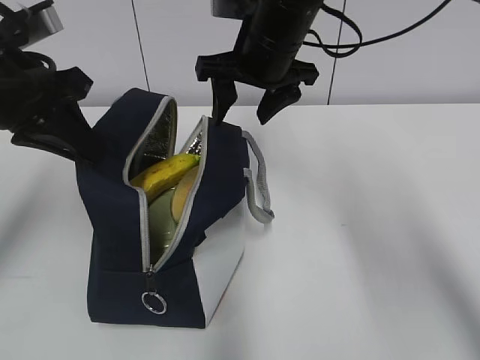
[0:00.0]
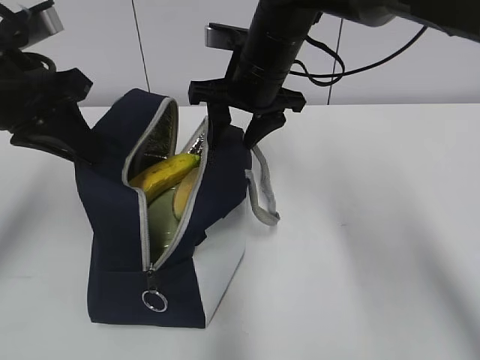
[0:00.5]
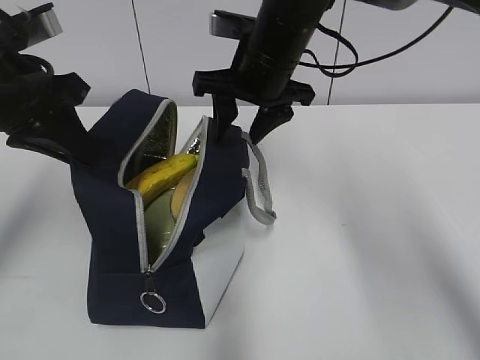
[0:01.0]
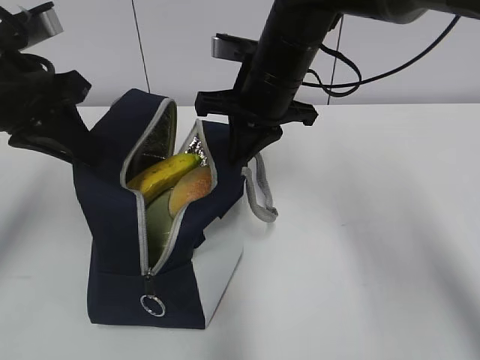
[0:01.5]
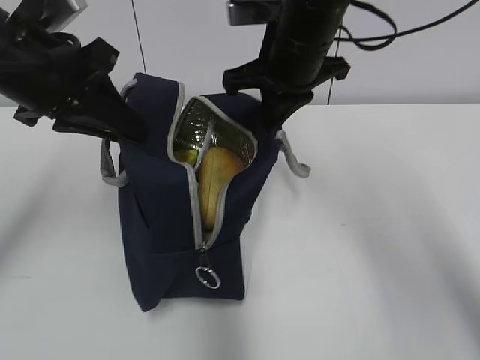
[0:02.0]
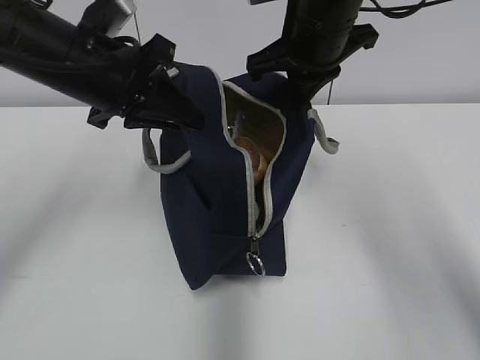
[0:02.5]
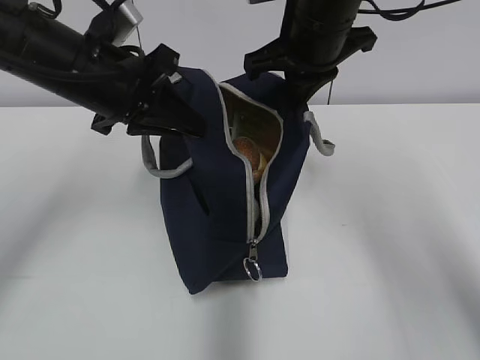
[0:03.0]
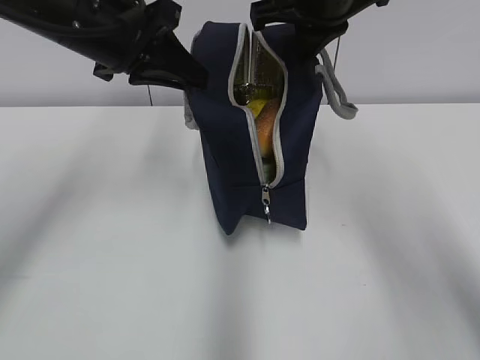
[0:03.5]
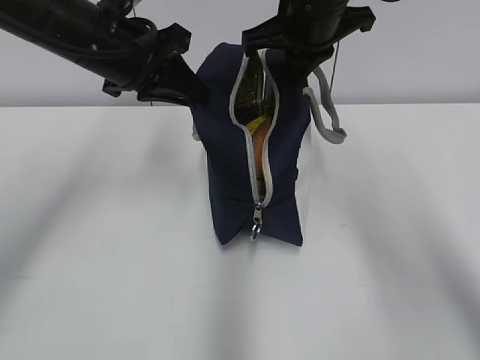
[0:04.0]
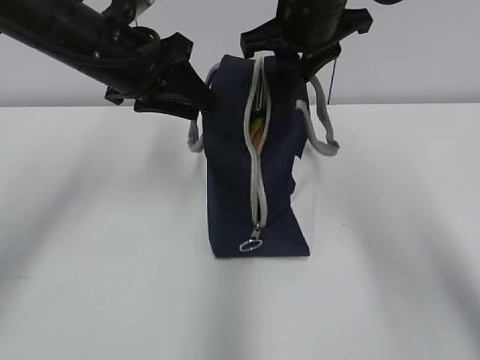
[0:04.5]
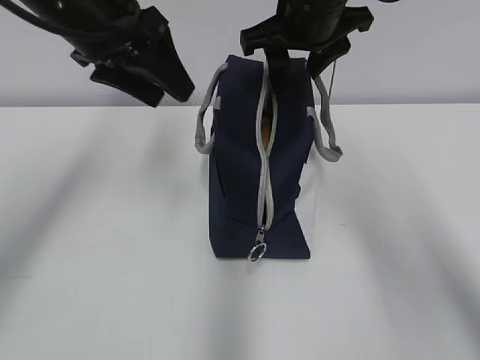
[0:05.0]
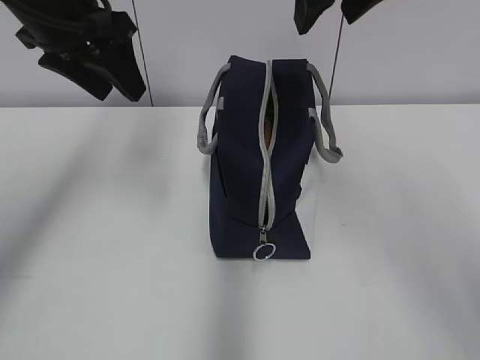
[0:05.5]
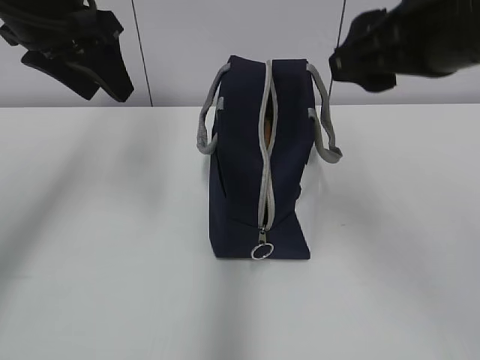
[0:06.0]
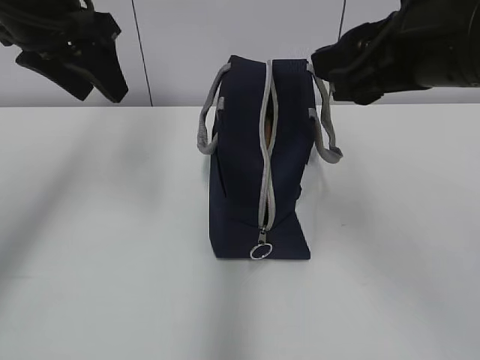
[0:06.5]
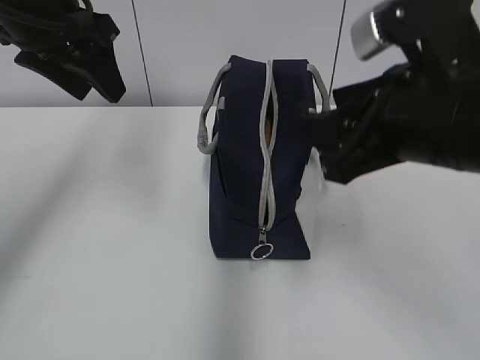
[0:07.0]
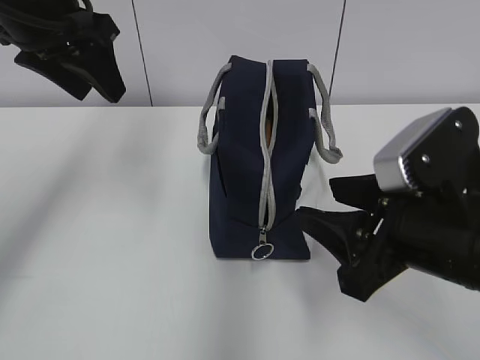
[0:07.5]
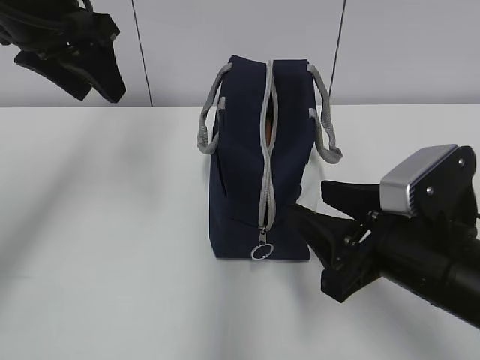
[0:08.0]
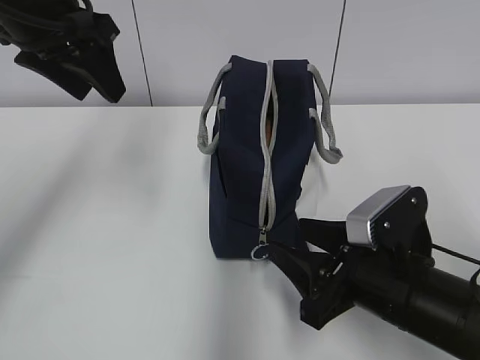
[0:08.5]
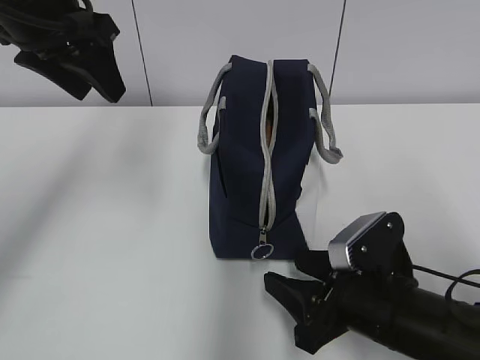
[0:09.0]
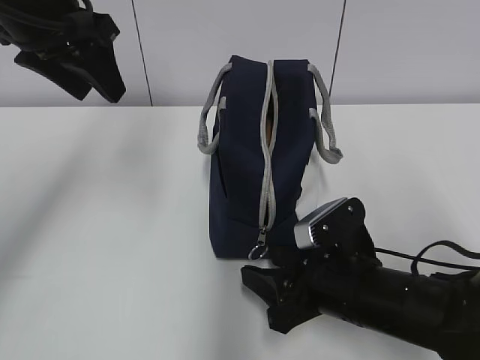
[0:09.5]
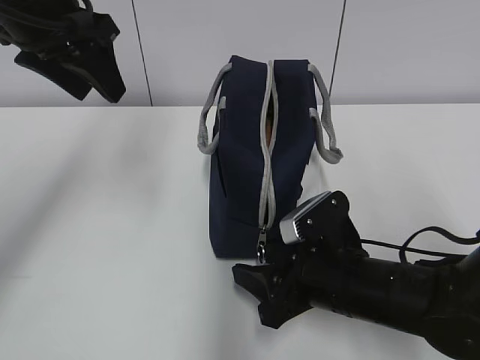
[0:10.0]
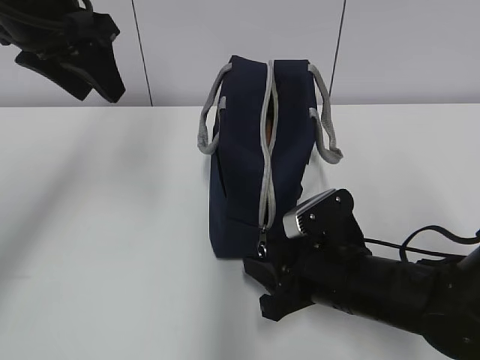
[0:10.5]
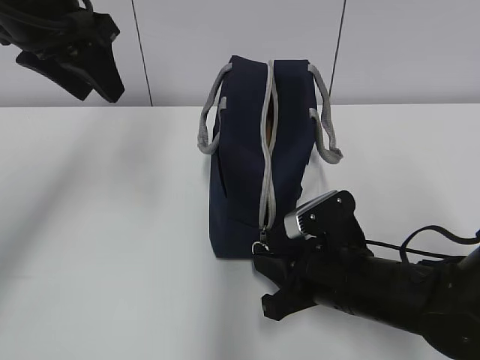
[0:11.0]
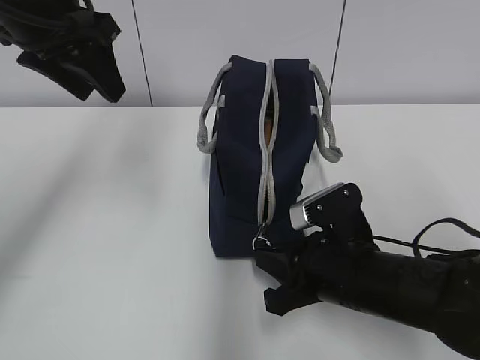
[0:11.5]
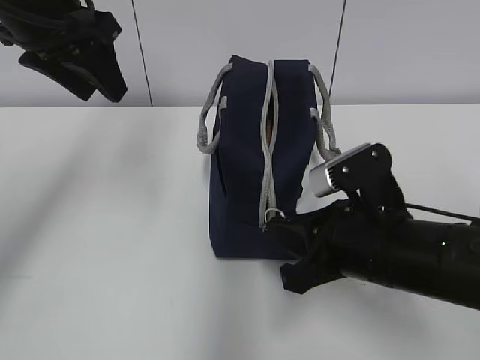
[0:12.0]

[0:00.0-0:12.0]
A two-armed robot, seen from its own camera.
0.0 to 2.0 s: The right gripper closes its fingers.
2.0 to 4.0 s: The left gripper is displaced forward by roughly 5 cm.
4.0 to 6.0 s: The left gripper moves upward, some 5 cm, and opens. The right gripper goes roughly 15 cm backward, and opens its fingers.
6.0 to 8.0 s: The right gripper travels downward by some 20 cm.
8.0 to 10.0 s: The right gripper travels downward by roughly 10 cm.
10.0 to 12.0 s: The right gripper shifts roughly 5 cm upward, and closes its fingers.

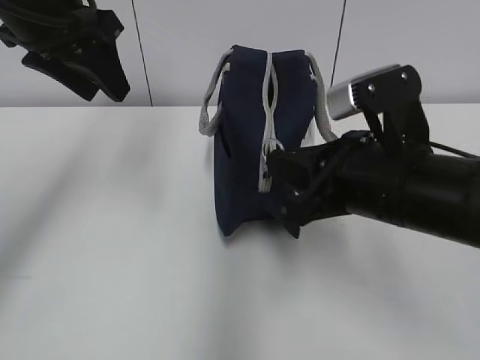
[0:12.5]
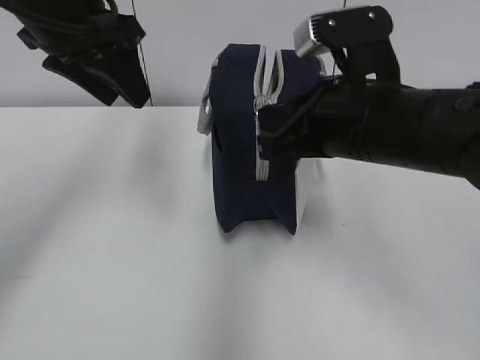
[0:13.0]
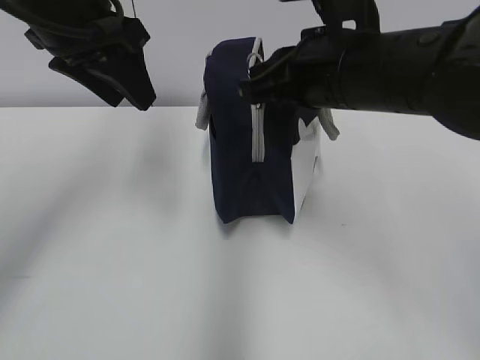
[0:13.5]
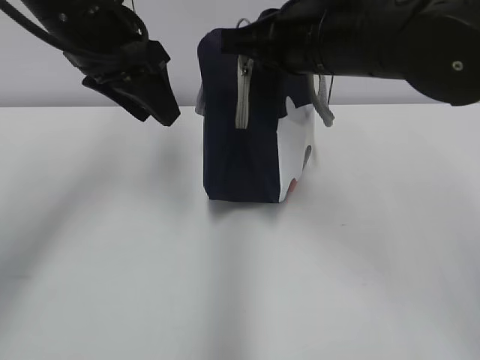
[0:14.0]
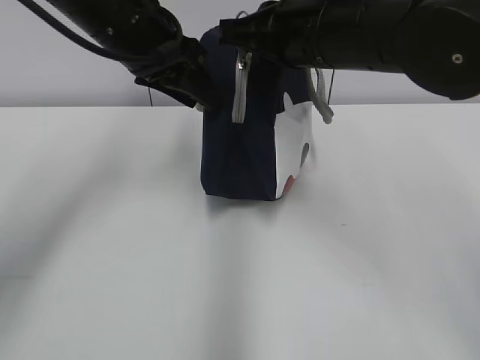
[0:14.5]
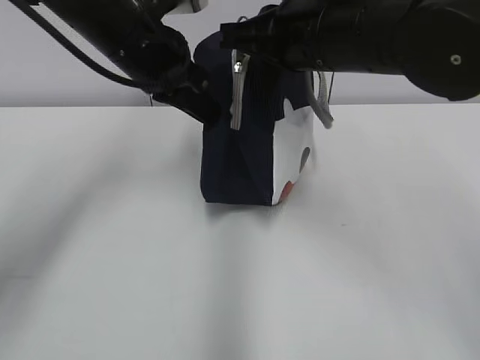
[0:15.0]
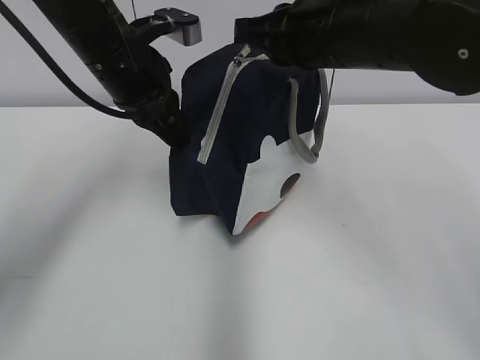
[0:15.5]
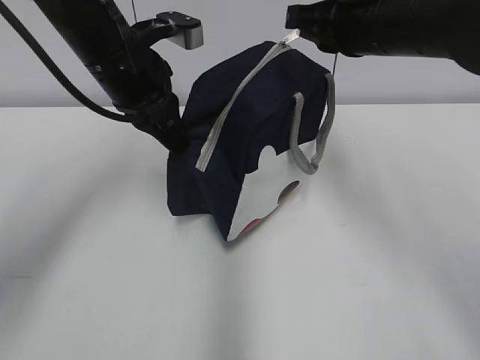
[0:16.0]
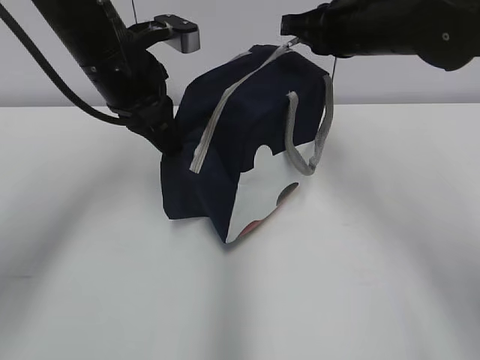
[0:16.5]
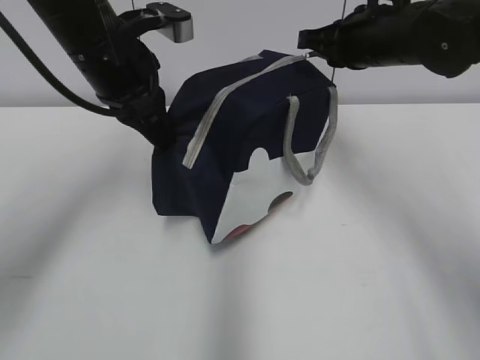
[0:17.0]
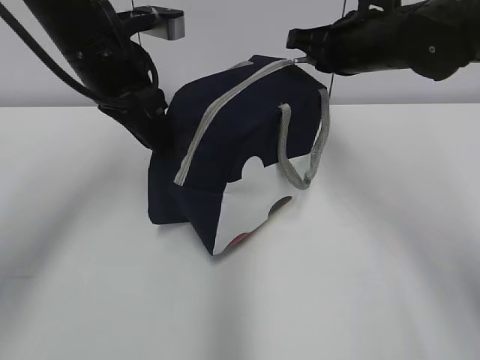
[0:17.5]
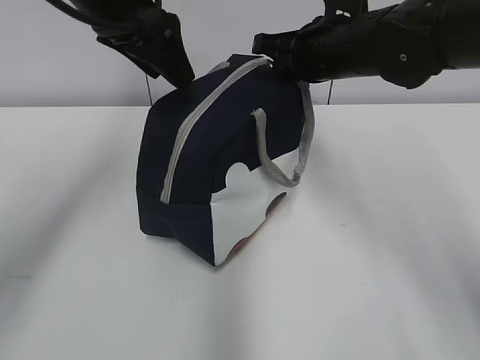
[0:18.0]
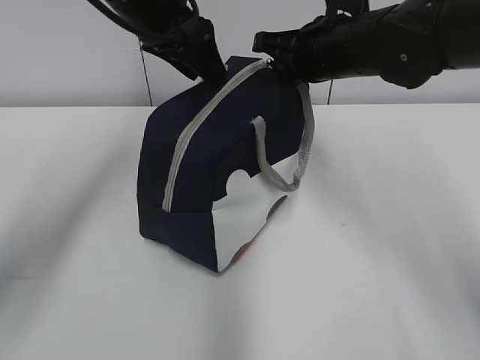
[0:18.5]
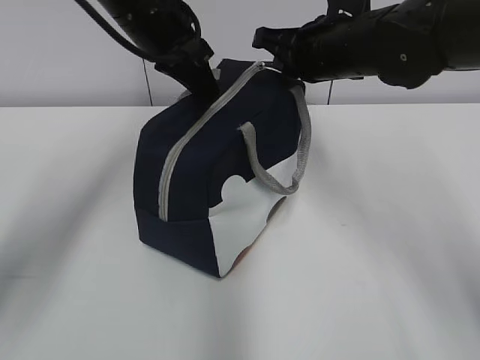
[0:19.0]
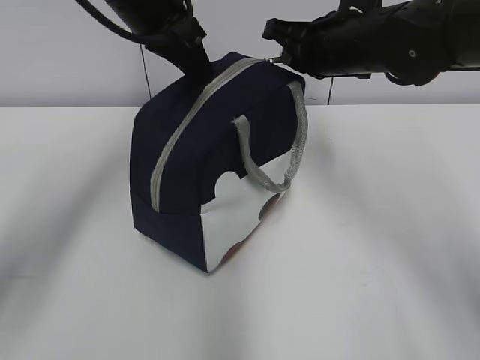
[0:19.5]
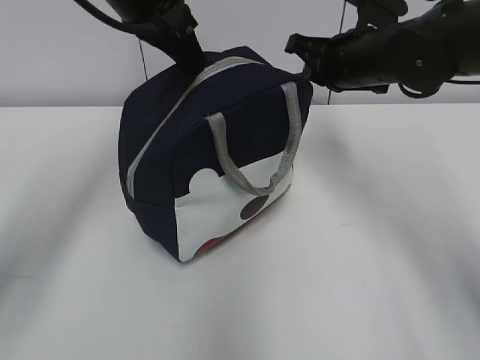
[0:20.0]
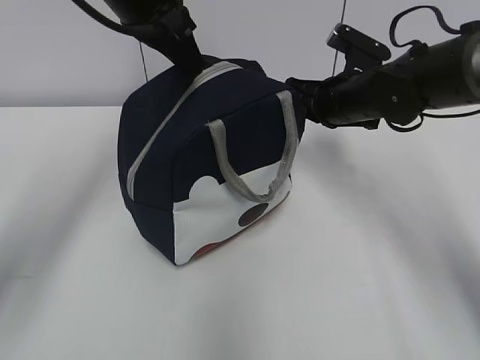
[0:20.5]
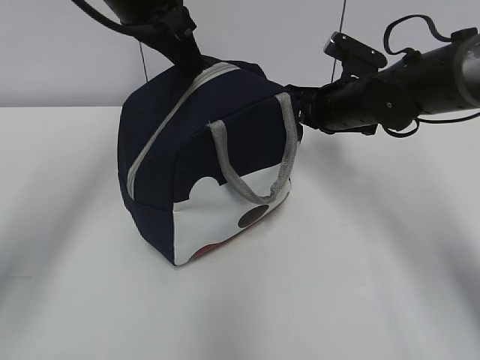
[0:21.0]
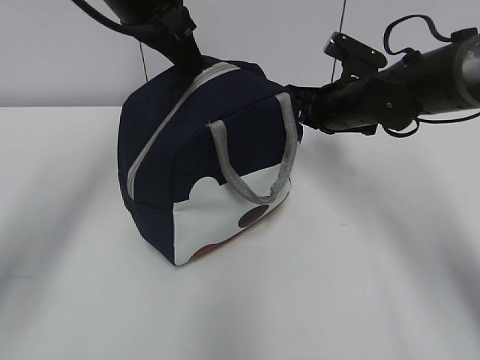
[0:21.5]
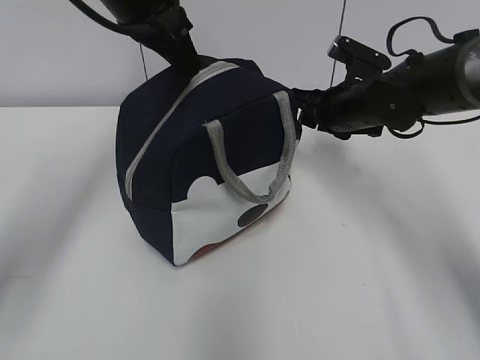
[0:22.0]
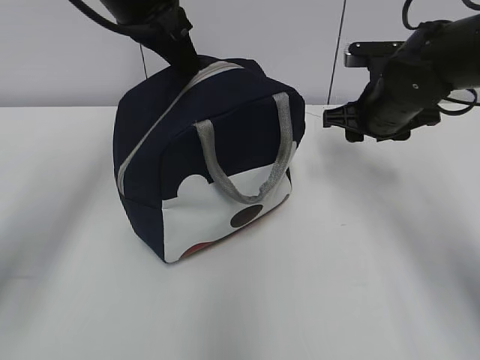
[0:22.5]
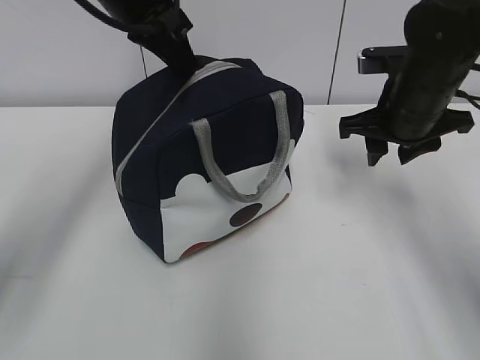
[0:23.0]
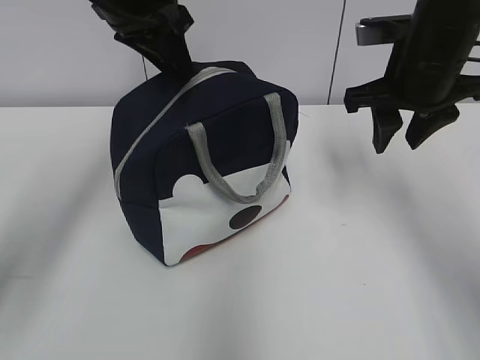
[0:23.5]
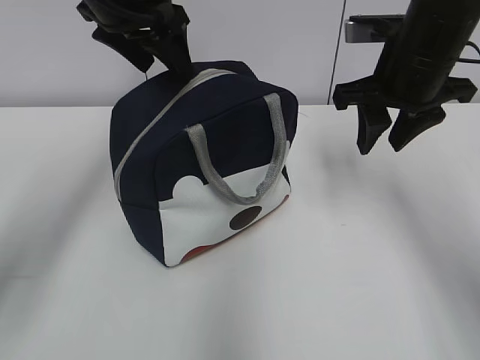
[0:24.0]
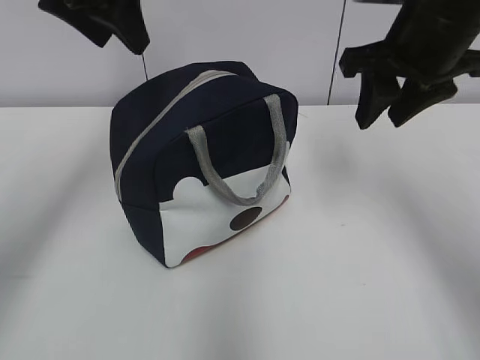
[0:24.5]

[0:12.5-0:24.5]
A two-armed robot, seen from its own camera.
12.5 to 14.5 s: The right gripper goes about 15 cm forward and upward. Meanwhile the left gripper moves to the right, some 5 cm.
14.5 to 16.5 s: The left gripper closes up. Meanwhile the right gripper is displaced forward and to the right by about 10 cm.
16.5 to 18.5 s: The left gripper goes about 5 cm upward, and opens.
18.5 to 20.5 s: The left gripper closes, while the right gripper is displaced downward by some 10 cm.
20.5 to 22.5 s: The right gripper opens up.
22.5 to 24.5 s: The right gripper shifts about 15 cm upward and backward. Meanwhile the left gripper changes place by roughly 5 cm, and opens.

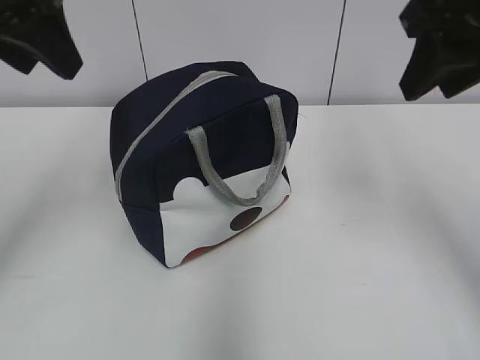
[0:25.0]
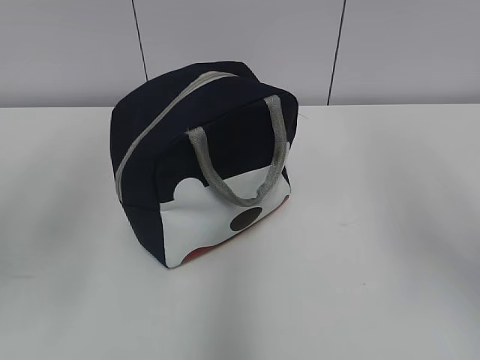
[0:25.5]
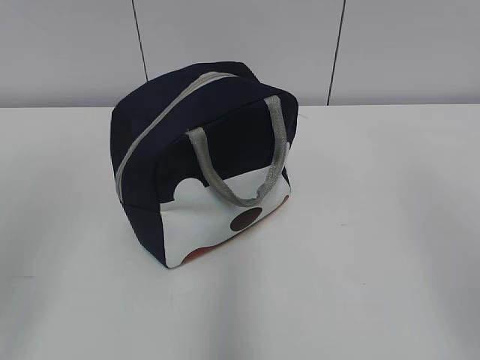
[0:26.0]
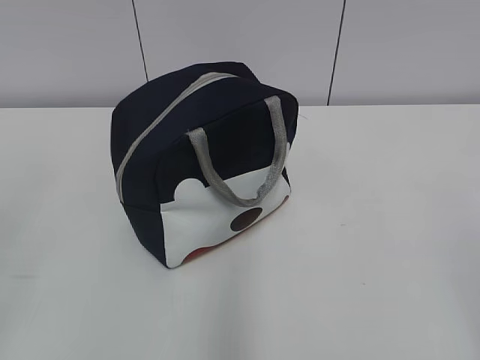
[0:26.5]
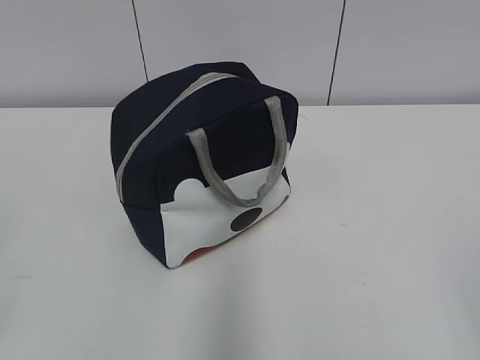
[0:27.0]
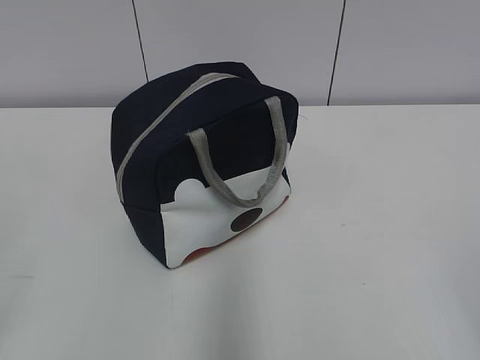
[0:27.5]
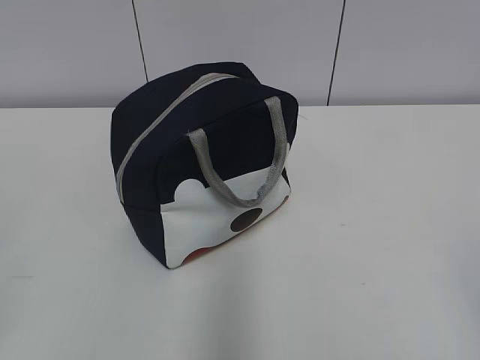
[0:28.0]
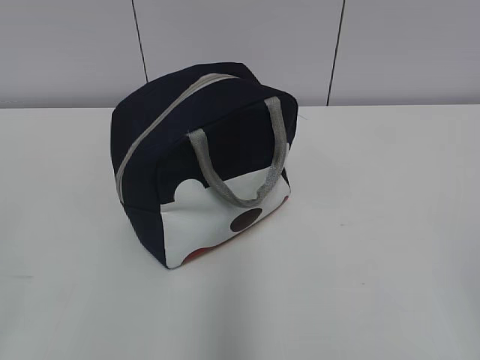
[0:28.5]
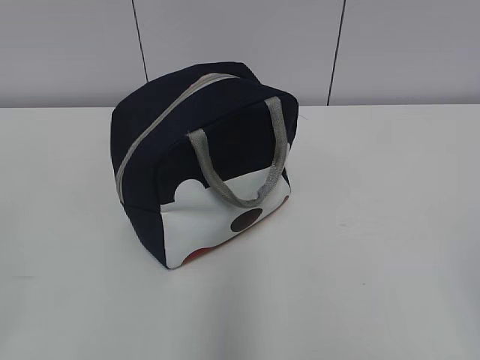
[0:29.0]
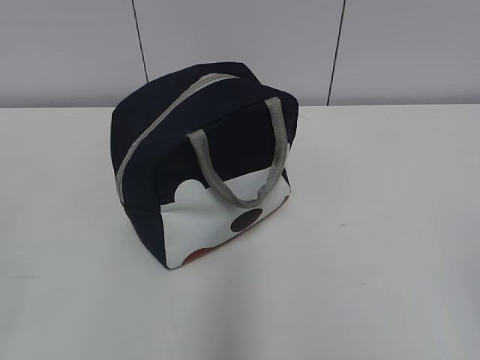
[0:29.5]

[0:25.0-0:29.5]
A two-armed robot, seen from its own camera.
25.0 to 27.0 s: The left gripper travels backward and to the left by approximately 35 cm. Meanwhile the right gripper heads backward, covering roughly 30 cm.
